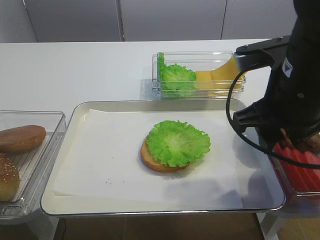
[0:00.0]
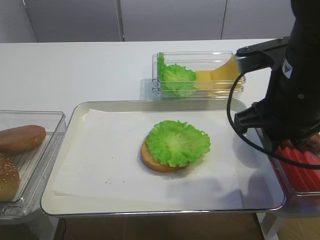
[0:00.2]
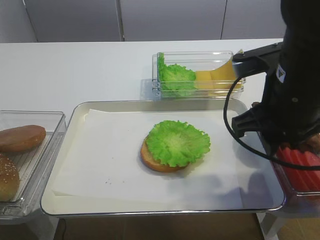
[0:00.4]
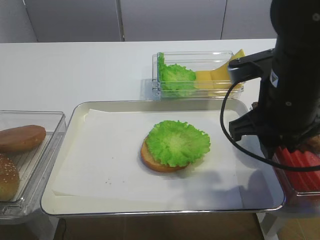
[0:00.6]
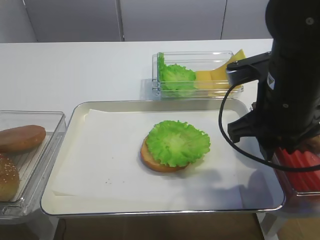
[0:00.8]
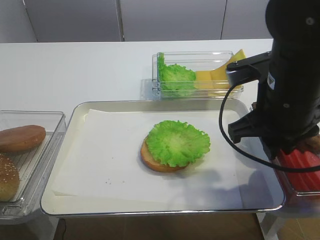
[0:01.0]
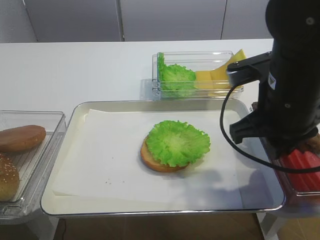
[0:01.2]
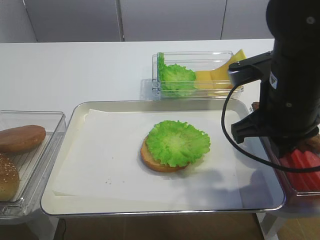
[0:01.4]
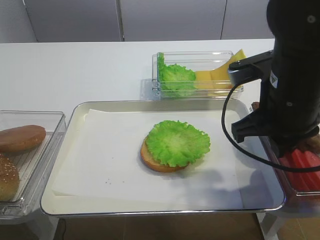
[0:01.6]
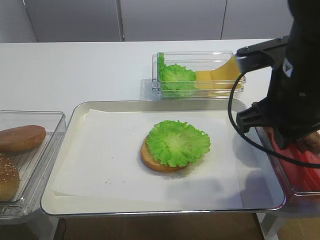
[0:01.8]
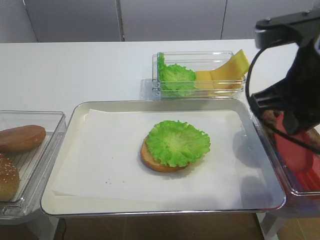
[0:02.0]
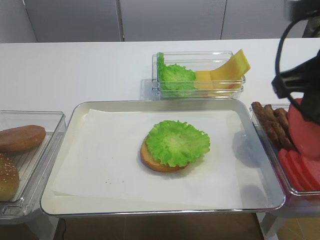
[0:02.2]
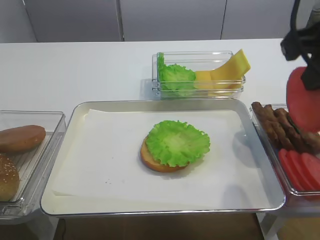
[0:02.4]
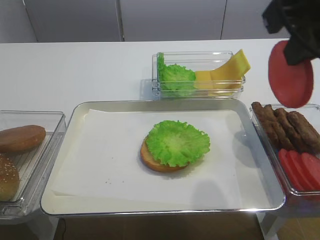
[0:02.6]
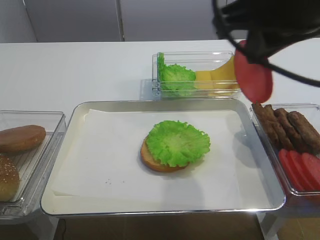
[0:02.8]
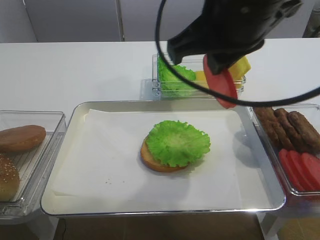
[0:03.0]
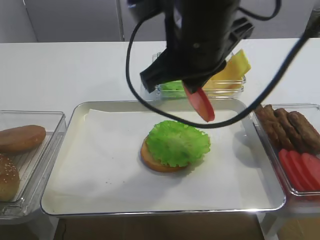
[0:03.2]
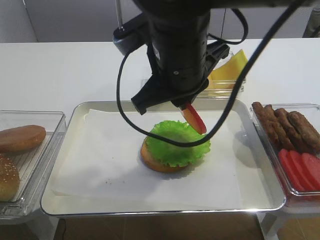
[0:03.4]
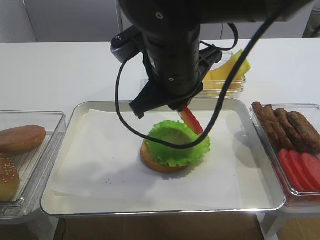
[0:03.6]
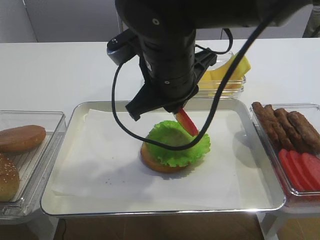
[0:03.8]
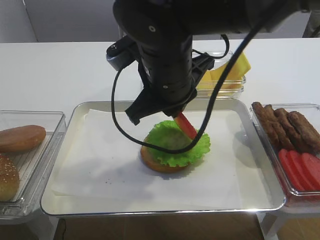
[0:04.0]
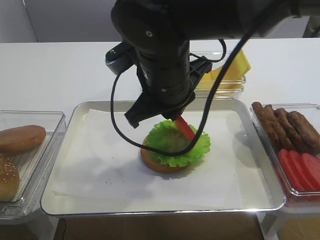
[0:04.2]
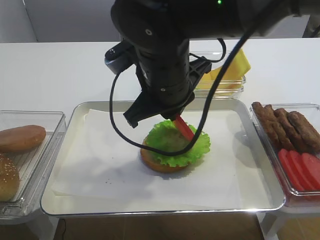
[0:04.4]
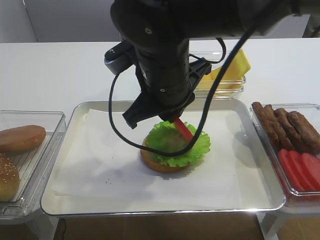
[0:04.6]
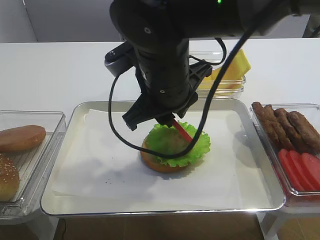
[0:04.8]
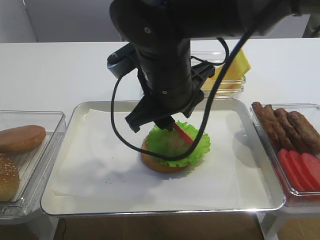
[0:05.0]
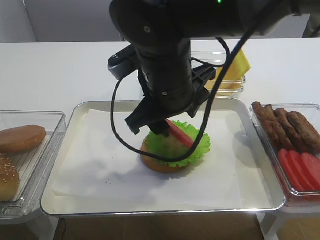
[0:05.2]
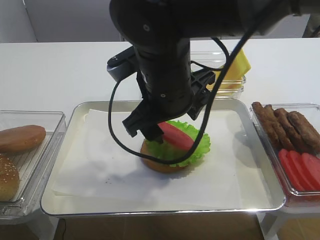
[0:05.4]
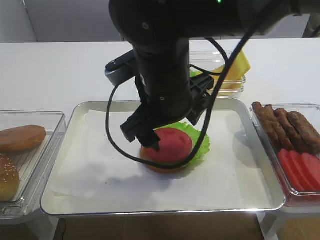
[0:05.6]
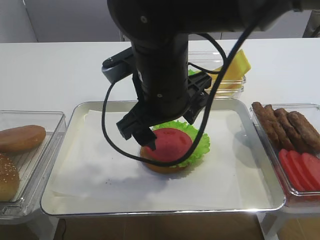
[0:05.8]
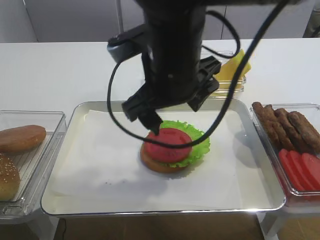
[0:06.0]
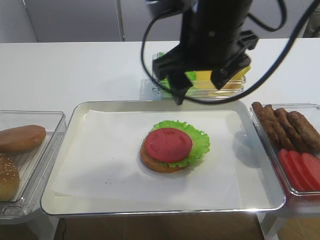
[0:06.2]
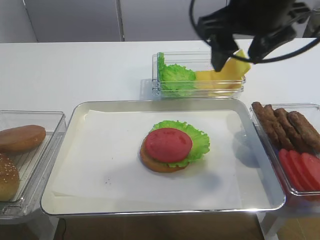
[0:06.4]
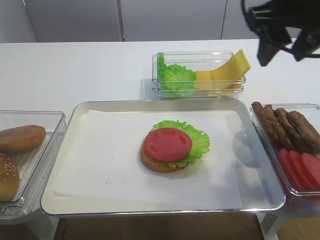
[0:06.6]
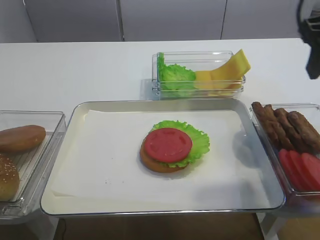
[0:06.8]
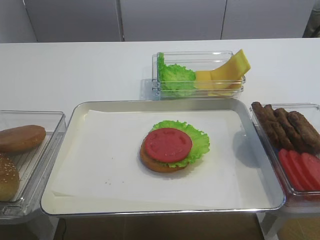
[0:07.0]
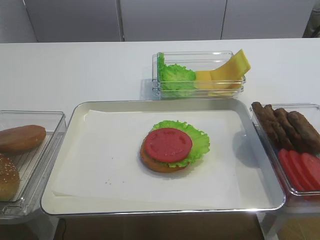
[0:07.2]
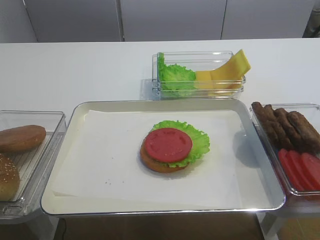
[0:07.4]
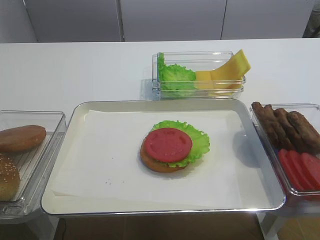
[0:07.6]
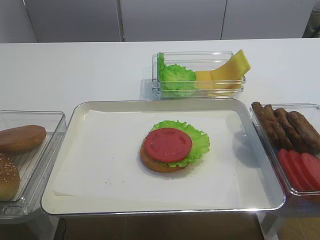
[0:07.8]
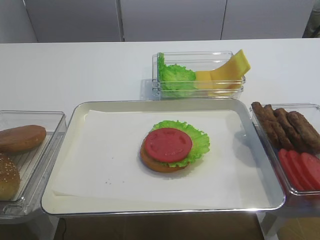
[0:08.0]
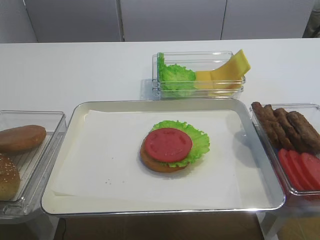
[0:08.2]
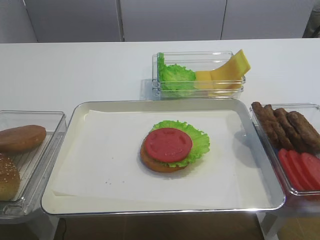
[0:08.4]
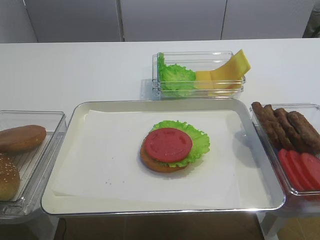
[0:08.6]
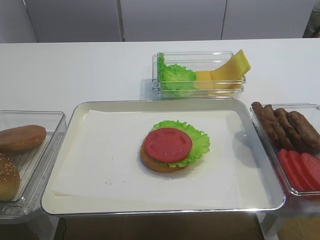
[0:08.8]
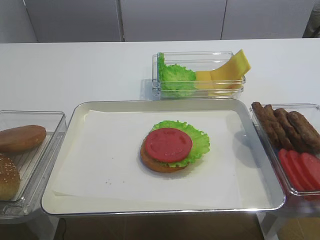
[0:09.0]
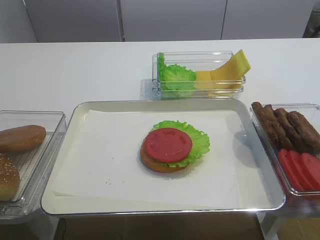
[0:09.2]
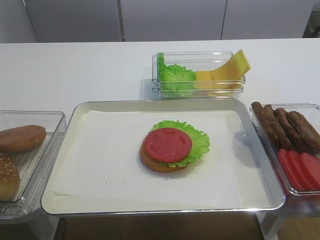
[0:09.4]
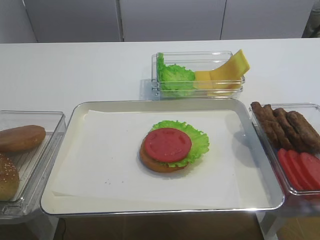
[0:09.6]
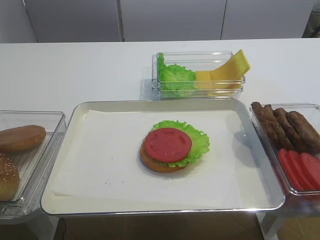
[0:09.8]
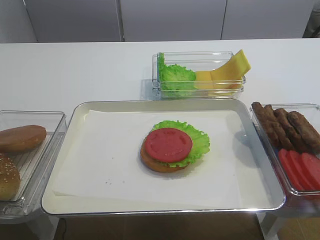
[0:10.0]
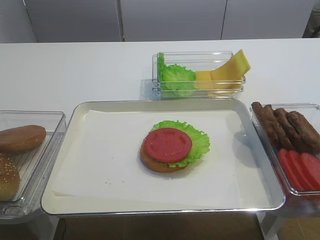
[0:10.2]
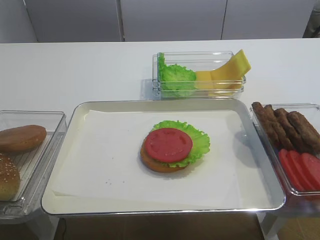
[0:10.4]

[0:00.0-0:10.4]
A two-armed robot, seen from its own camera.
Step, 0:02.2 to 0:05.6: Place the tomato slice on the lettuce leaf with the right gripper.
0:00.0 to 0:01.4: The right gripper closes up.
0:01.4 to 0:03.0: The right gripper travels upward and to the left by some 15 cm.
0:03.0 to 0:04.4: The right gripper shifts approximately 10 cm downward and to the left.
0:04.4 to 0:06.0: The right gripper opens.
0:06.0 to 0:07.4: The right gripper travels to the right and backward by approximately 30 cm, and closes.

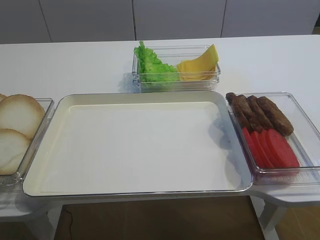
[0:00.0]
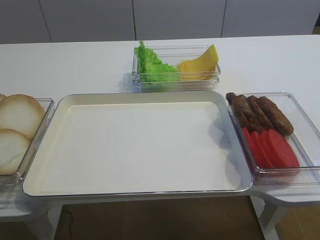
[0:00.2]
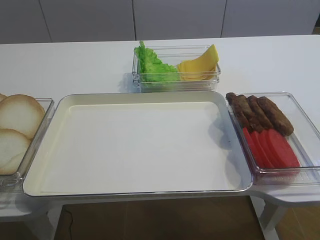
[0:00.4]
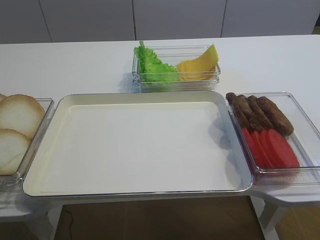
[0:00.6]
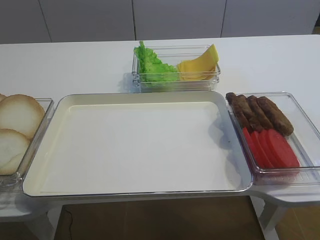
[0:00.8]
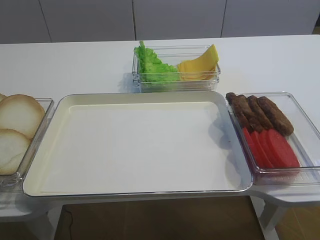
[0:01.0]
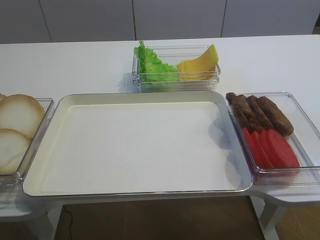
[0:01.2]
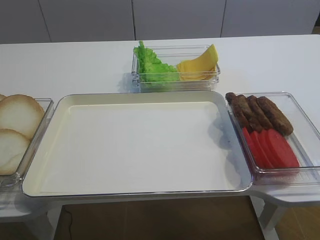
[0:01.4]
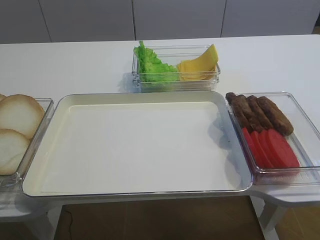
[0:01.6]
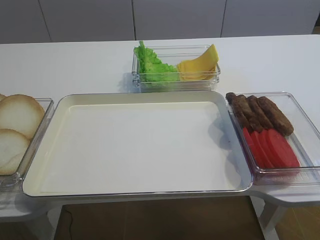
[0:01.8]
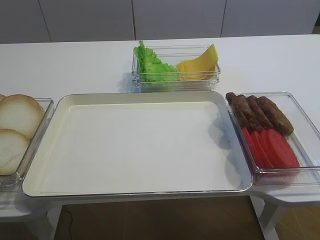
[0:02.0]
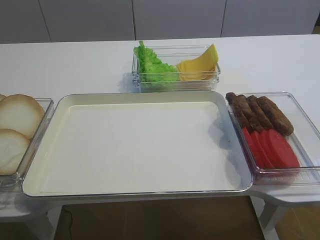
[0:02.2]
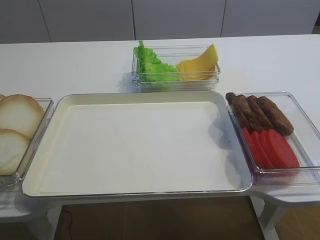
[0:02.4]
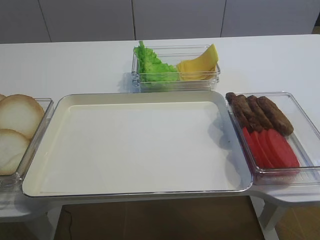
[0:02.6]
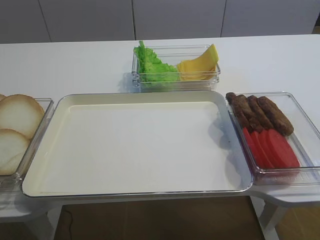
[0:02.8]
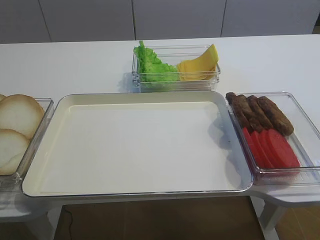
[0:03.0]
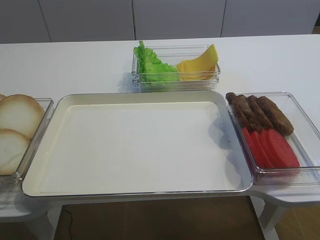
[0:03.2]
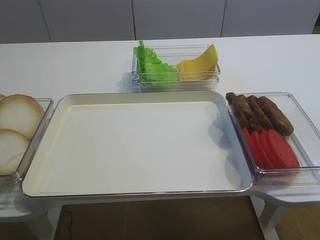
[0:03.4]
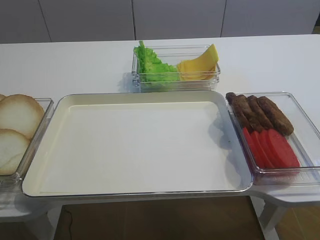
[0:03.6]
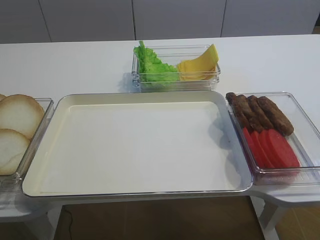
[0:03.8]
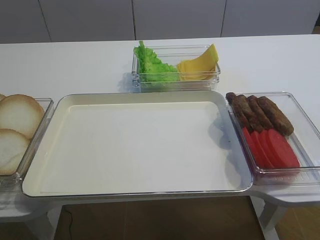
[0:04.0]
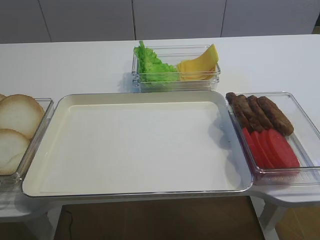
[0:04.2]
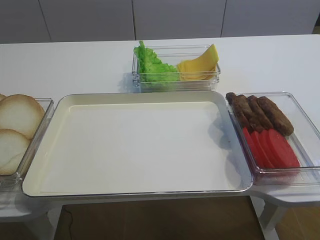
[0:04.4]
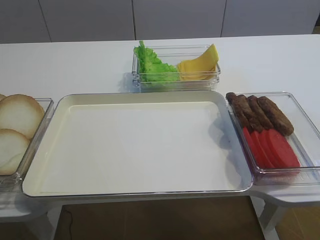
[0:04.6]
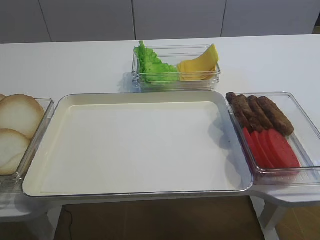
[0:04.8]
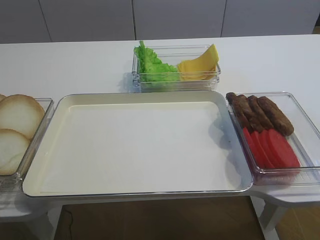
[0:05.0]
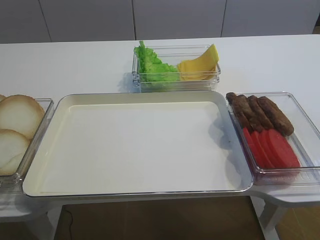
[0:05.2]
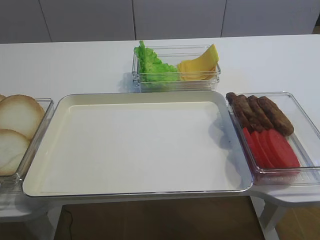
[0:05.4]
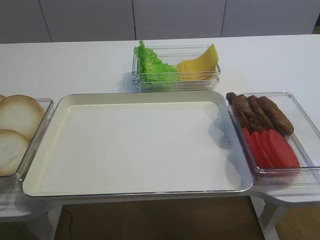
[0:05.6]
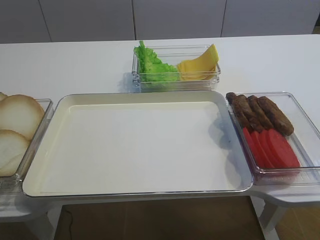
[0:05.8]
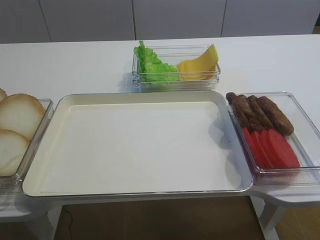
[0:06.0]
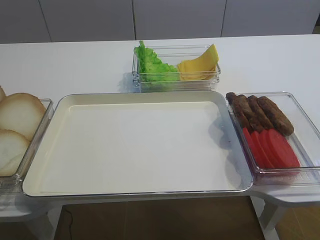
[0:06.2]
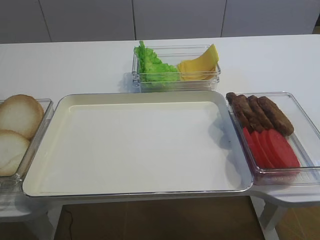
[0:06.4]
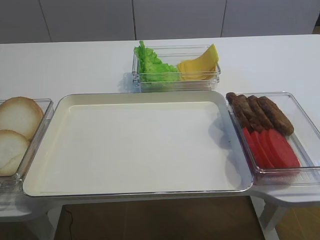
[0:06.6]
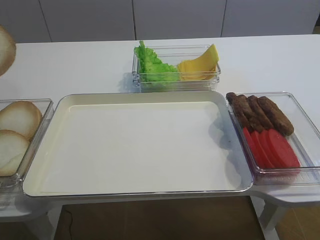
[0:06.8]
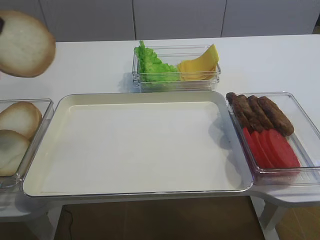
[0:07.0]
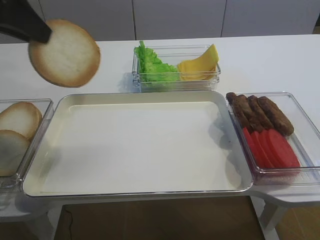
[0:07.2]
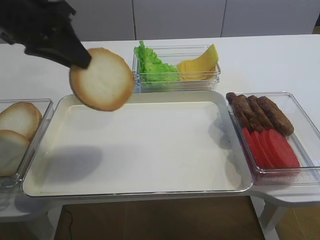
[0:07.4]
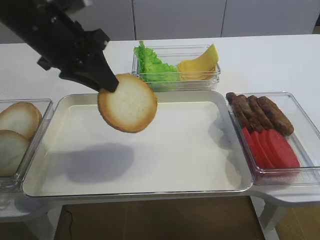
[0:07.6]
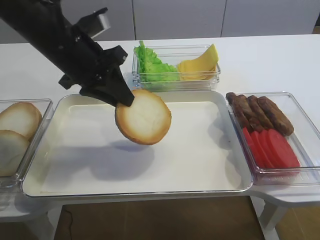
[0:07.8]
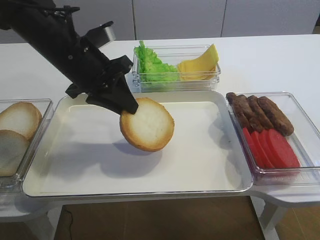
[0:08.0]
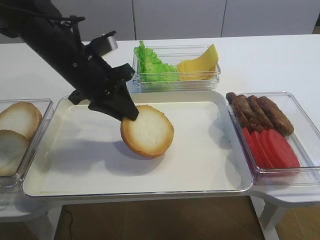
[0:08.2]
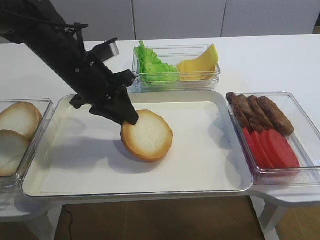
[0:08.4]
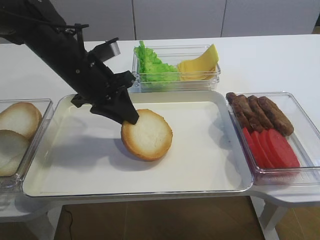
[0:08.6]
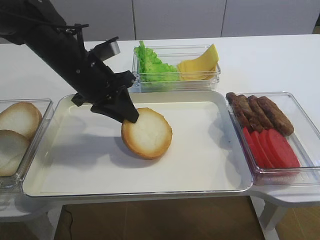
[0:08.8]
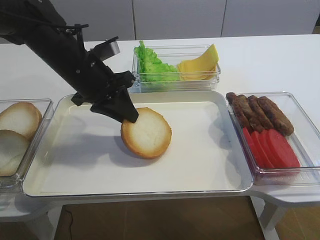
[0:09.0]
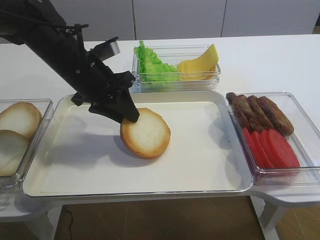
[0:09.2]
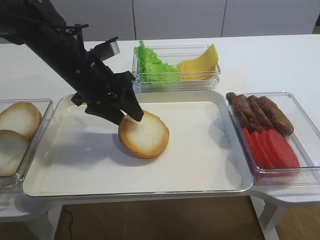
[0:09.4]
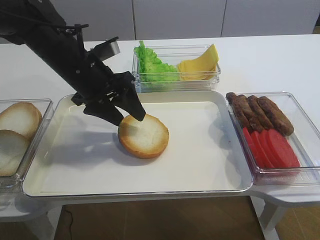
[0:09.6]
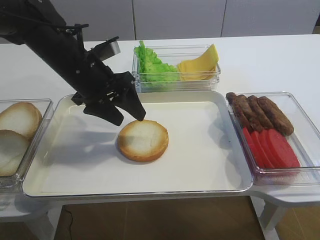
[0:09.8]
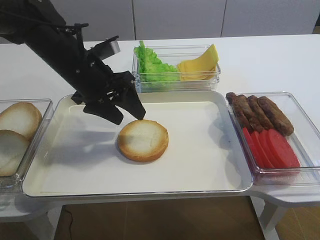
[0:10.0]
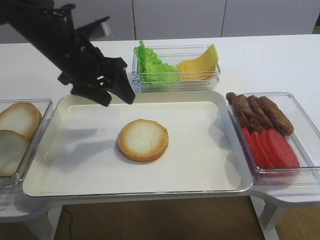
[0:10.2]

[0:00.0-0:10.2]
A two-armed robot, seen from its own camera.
Step, 0:06.8 to 0:09.8: Place the bread slice on the tray with the left gripper.
0:05.8 to 0:07.2: The left gripper shifts about 20 cm upward, to the right and backward.
0:07.2 to 0:08.8: The left gripper goes about 20 cm downward, to the right and forward.
0:08.8 to 0:10.2: The left gripper opens up.

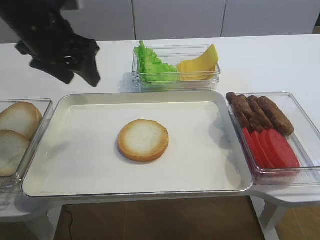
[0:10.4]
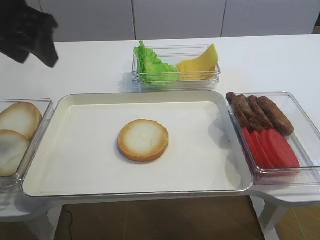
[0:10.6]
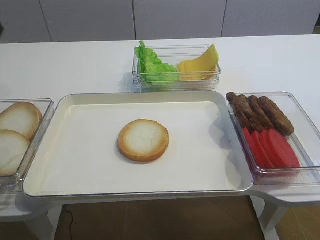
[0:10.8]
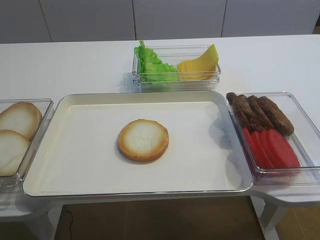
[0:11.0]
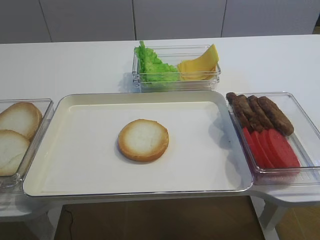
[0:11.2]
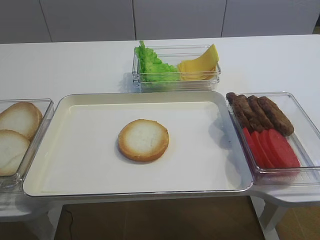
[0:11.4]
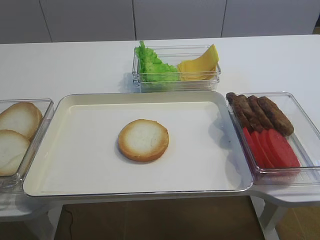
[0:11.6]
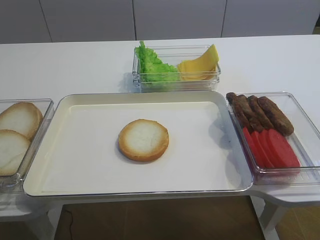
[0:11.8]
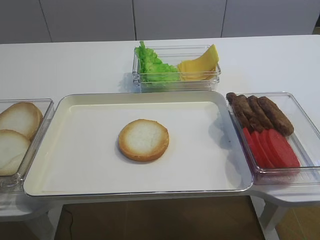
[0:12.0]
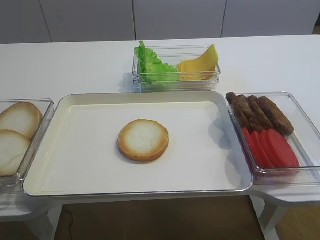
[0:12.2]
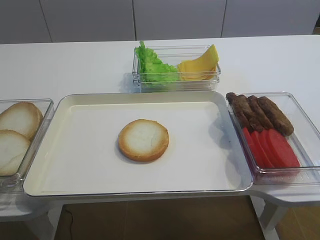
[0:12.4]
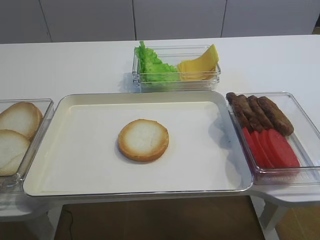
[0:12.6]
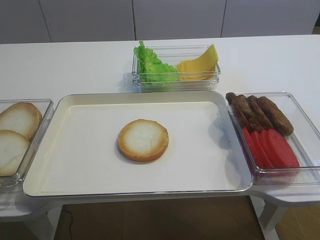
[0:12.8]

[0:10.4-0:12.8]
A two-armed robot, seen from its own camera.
0:10.4 to 0:11.6: The left gripper heads backward and to the left, covering about 30 cm.
